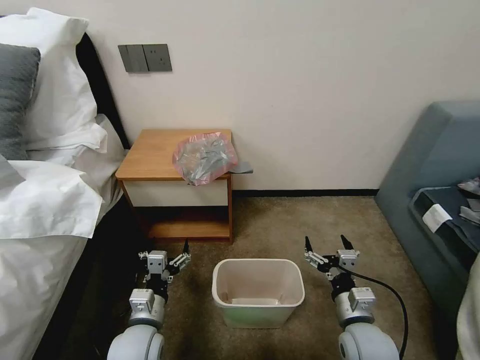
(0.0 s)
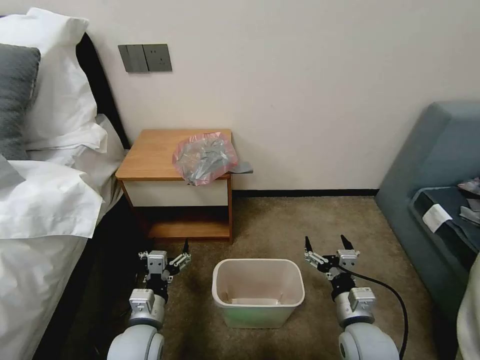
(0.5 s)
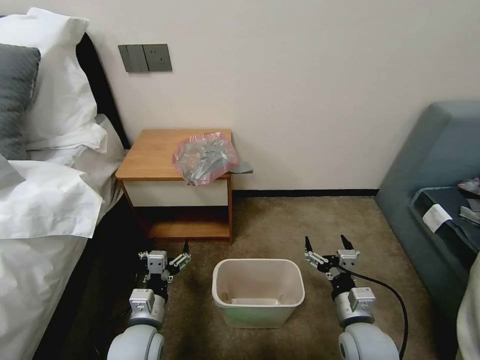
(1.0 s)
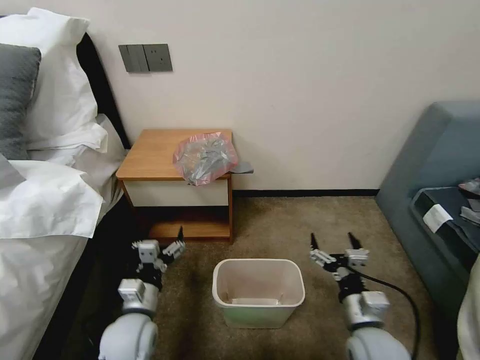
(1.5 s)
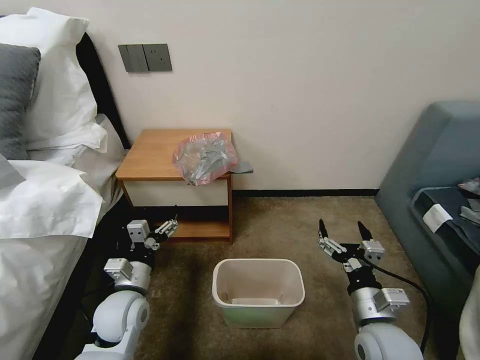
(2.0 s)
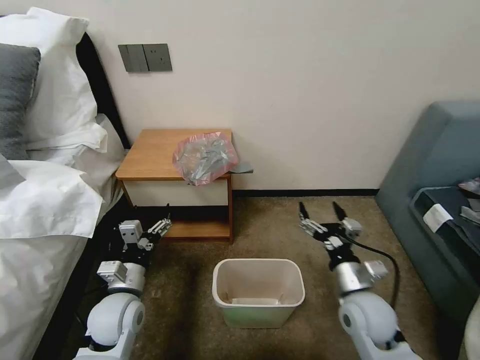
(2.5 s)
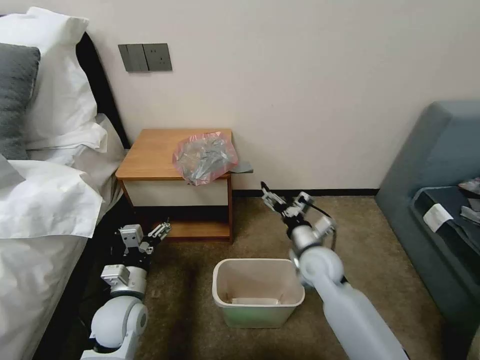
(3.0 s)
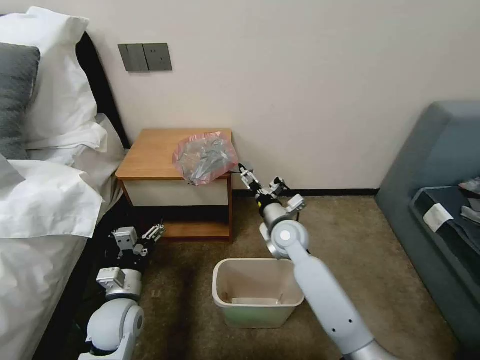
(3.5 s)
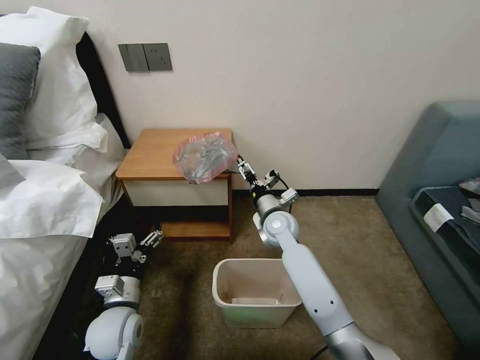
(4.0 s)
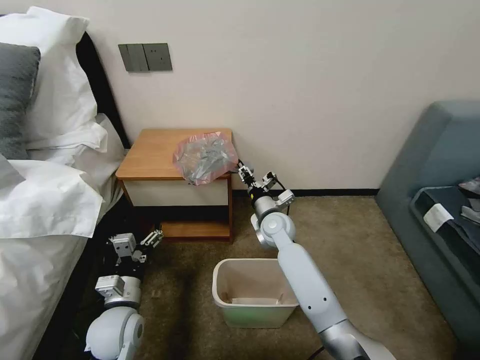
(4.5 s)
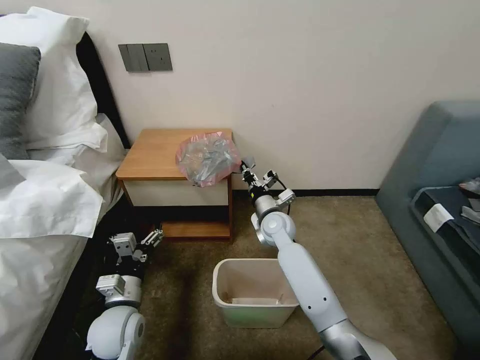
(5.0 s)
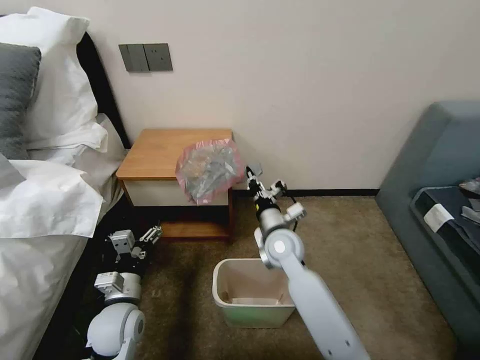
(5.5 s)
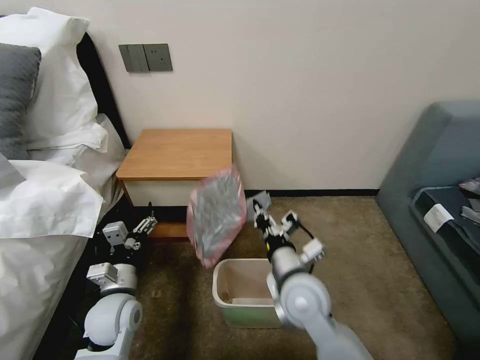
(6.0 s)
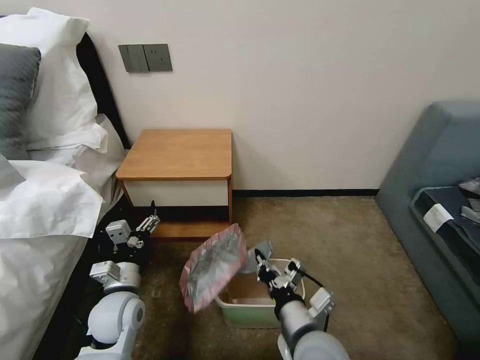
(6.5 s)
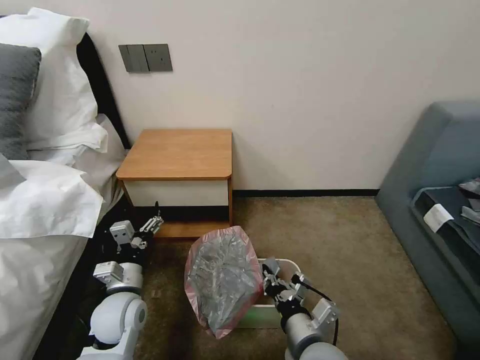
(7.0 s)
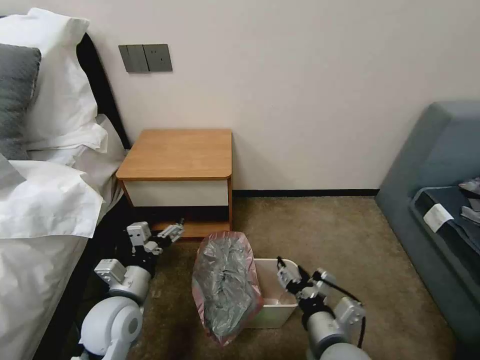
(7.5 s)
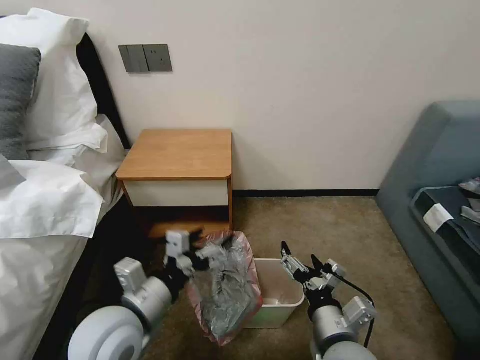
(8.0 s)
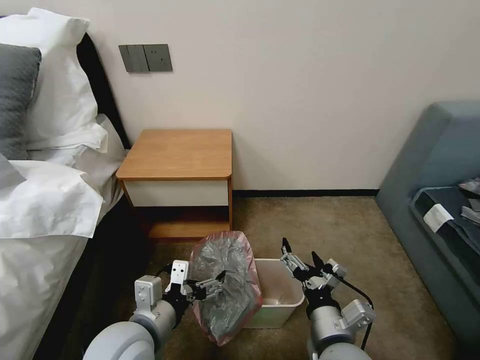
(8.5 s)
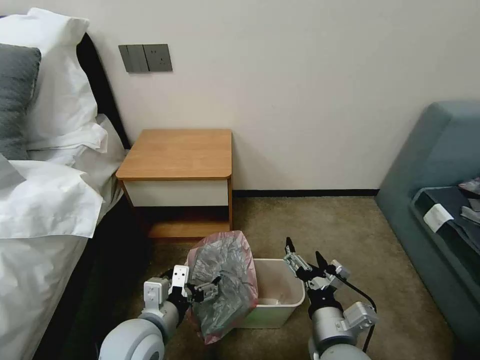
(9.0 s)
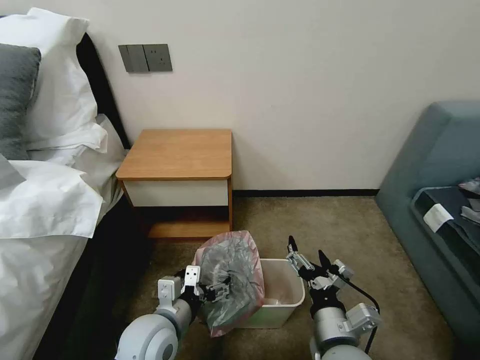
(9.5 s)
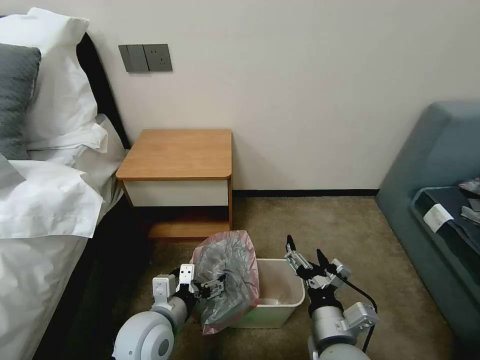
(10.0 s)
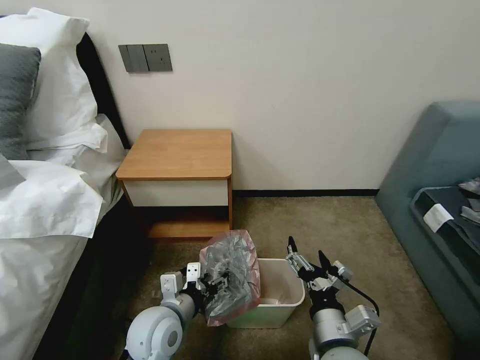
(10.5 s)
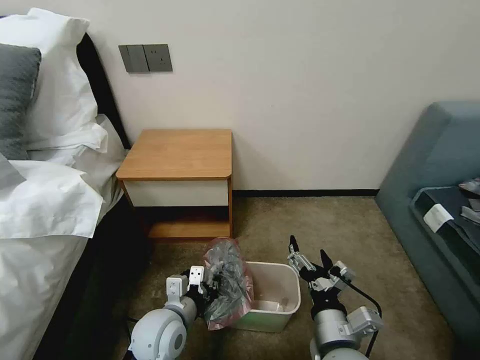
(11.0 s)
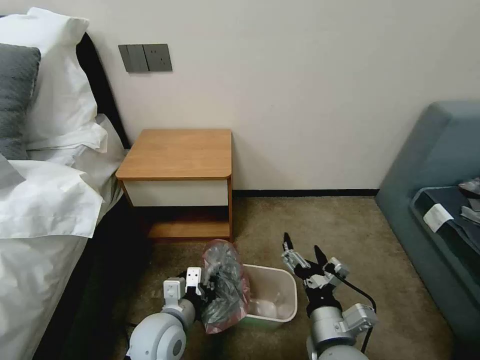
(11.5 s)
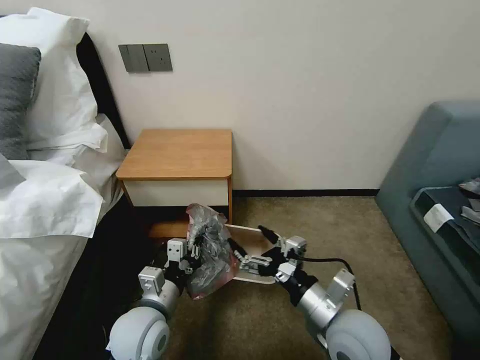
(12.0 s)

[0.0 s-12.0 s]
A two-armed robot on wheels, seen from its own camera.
Task of the whole recording: Pick up the garbage bag from the table and place it over the trash can.
2.0 to 4.0 s: The right gripper is displaced forward and to the left by some 30 cm.
4.0 to 6.0 s: The right gripper travels backward by some 20 cm, and closes.
6.0 to 8.0 s: The left gripper goes some 15 cm upward, backward and to the right. The right gripper is displaced backward and to the right by roughly 15 cm, and opens.
8.0 to 10.0 s: The left gripper travels downward by approximately 10 cm.
10.0 to 12.0 s: The left gripper closes up; the right gripper ends up roughly 5 cm from where it was.

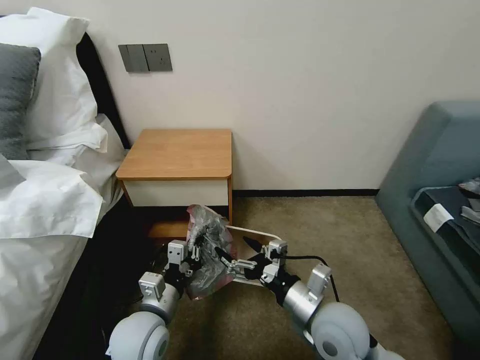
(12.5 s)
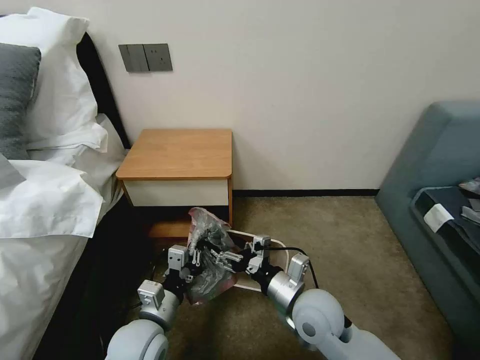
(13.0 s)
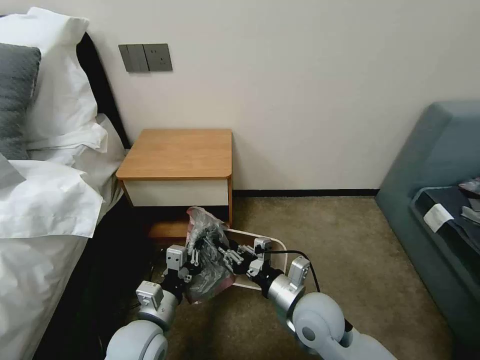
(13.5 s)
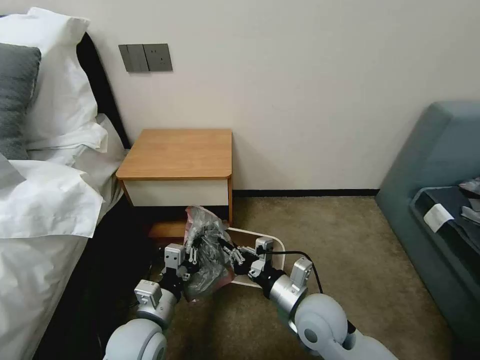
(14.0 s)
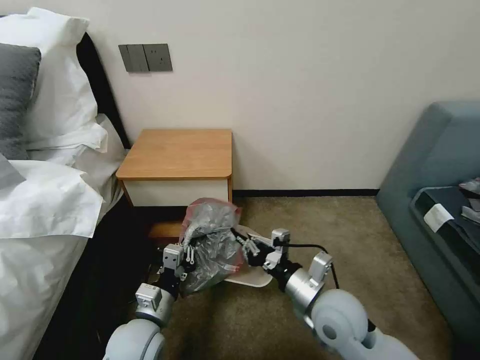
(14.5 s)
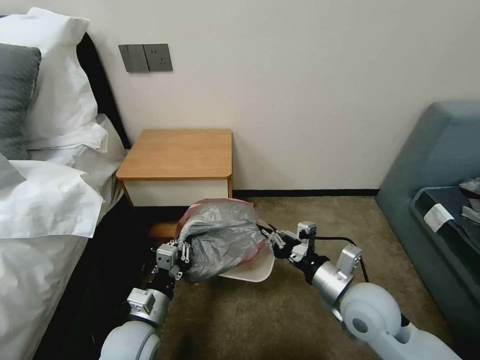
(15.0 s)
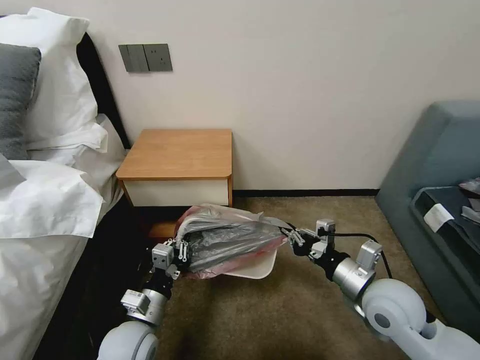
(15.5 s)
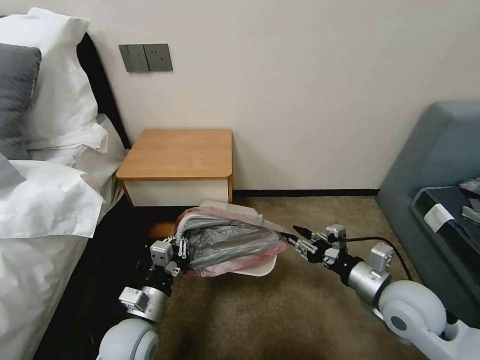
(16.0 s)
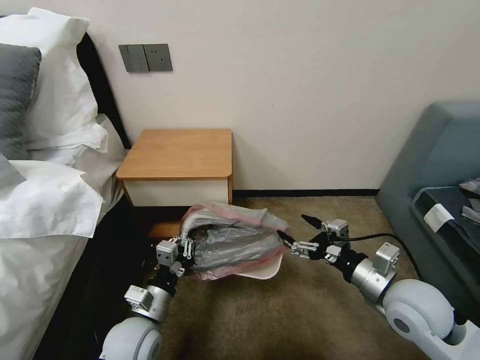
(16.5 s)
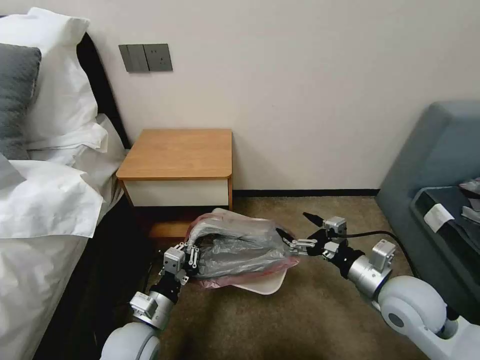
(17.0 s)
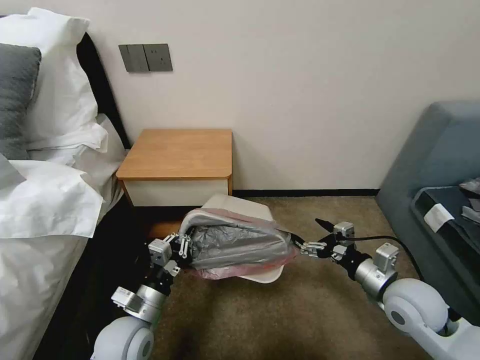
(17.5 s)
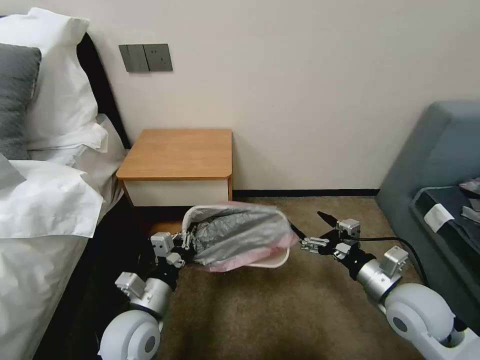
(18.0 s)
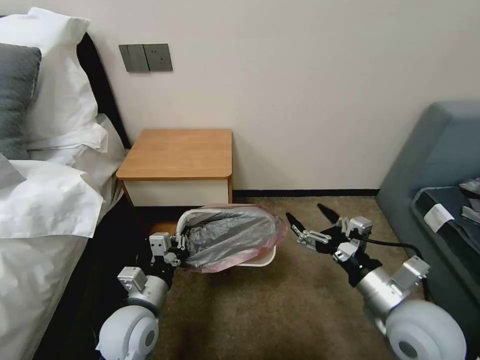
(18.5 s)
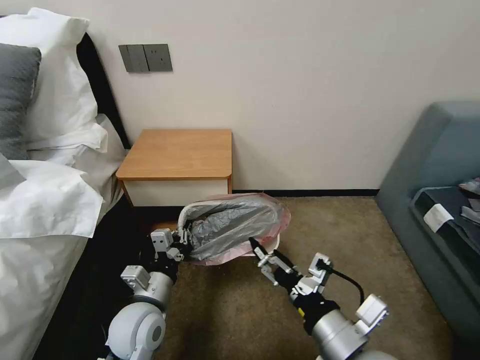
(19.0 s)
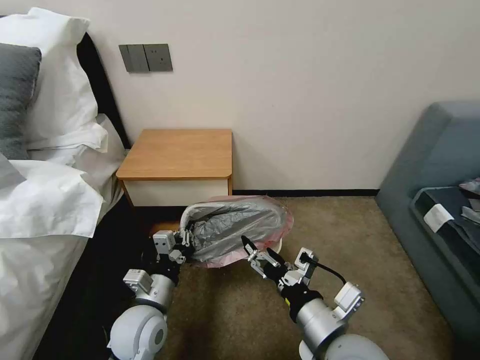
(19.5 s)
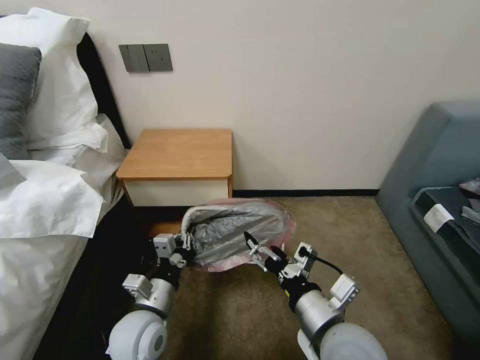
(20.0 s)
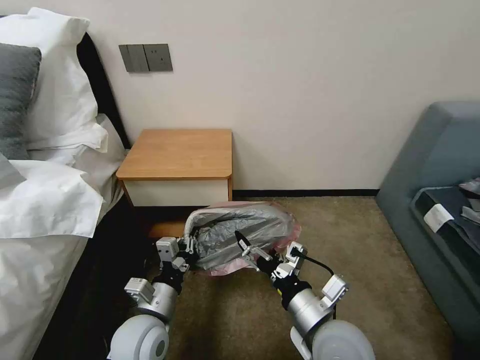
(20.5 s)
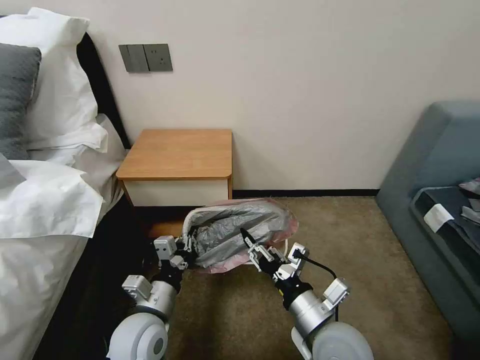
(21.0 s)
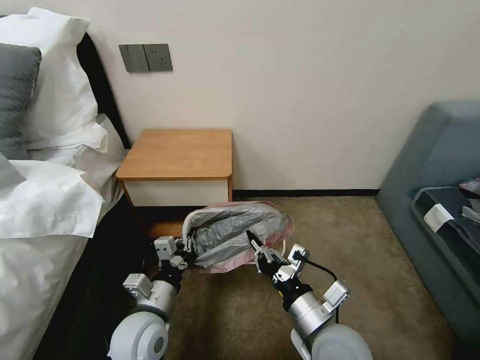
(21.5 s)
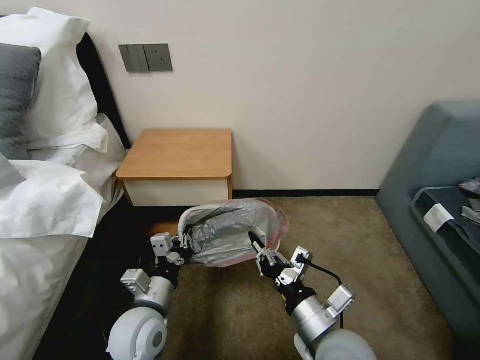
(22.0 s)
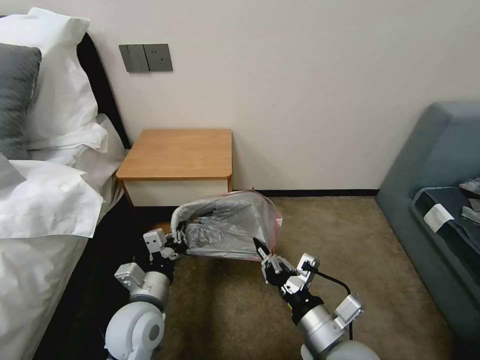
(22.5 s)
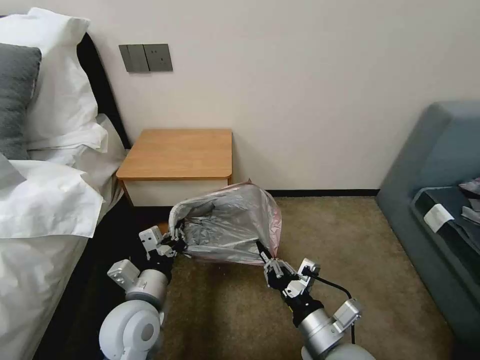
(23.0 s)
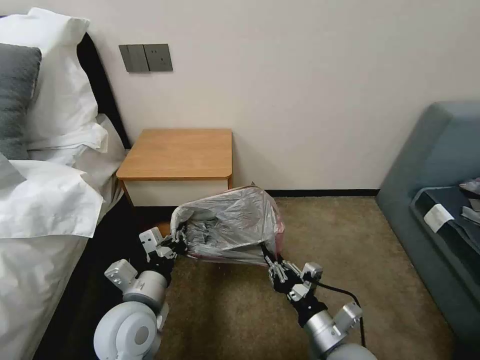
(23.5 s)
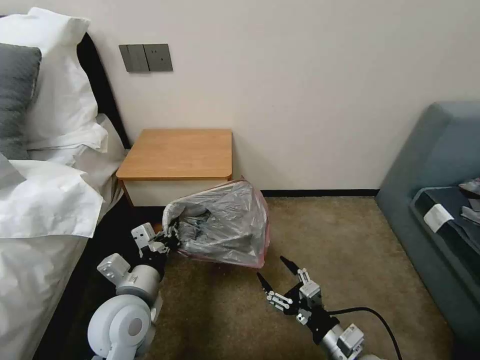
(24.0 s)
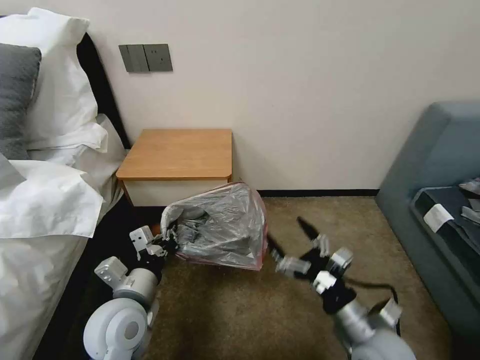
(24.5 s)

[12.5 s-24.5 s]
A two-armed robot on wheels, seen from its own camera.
Task of the whole recording: Pick up the garbage bag from the table and place it over the trash can.
12.5 to 14.5 s: The right gripper closes.
14.5 to 16.5 s: The right gripper heads to the right, covering approximately 10 cm, and opens.
16.5 to 18.5 s: The right gripper ends up about 5 cm from where it was.
18.5 to 20.5 s: The right gripper goes some 10 cm to the left.
20.5 to 22.5 s: The right gripper closes up.
22.5 to 24.5 s: The right gripper heads to the right, covering roughly 5 cm, and opens.

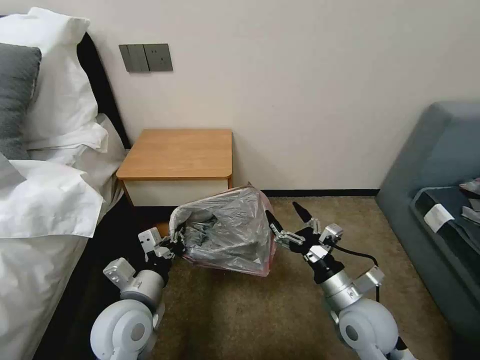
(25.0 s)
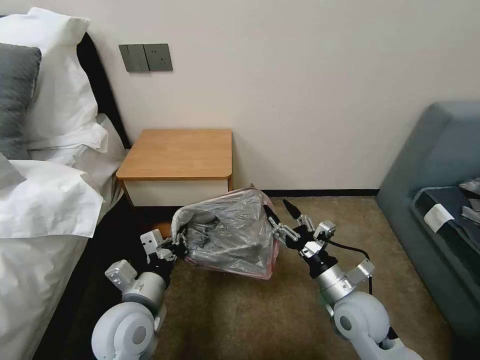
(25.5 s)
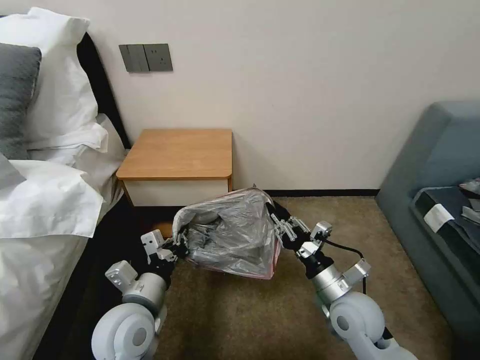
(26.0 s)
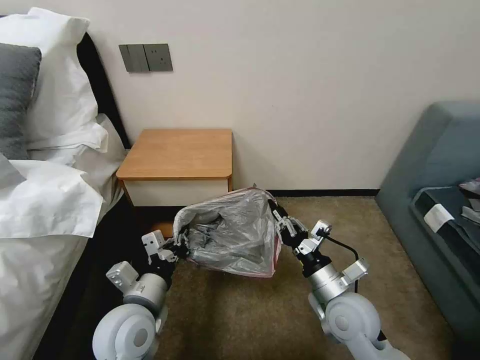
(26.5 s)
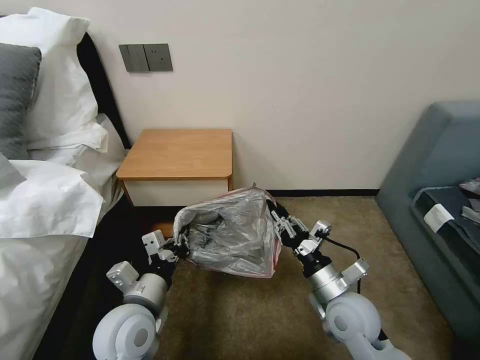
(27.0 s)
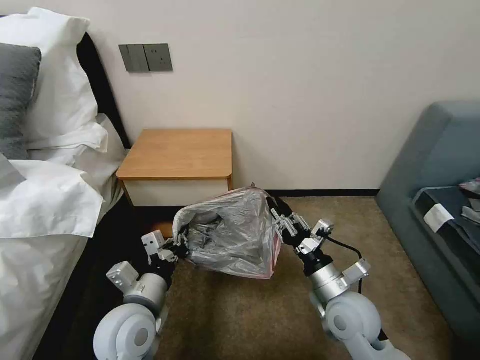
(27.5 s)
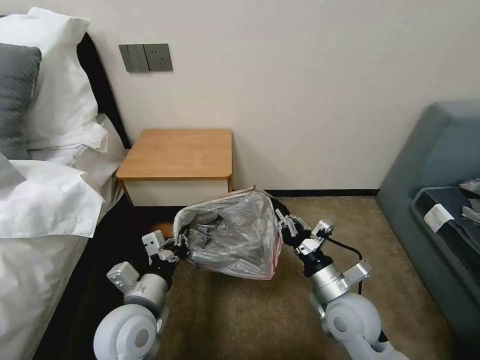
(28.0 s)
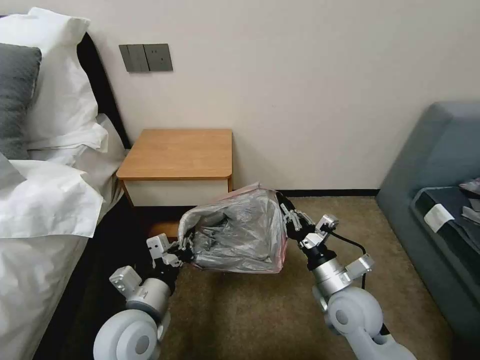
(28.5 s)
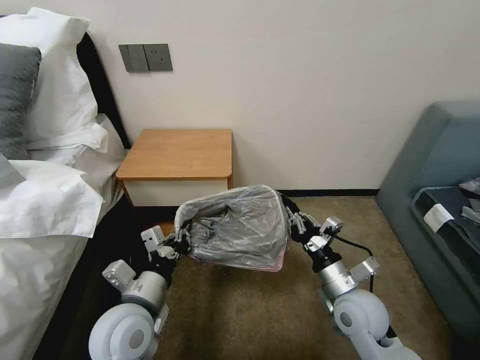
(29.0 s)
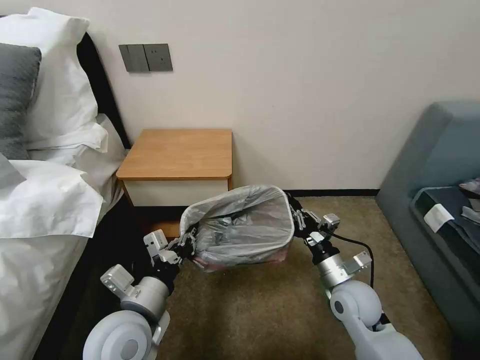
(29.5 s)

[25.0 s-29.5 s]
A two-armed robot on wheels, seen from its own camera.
Task of the whole recording: Pick up the garbage bag from the table and place it over the trash can.
25.0 to 27.0 s: The right gripper closes up.
27.0 to 29.5 s: The right gripper shifts by about 5 cm.
